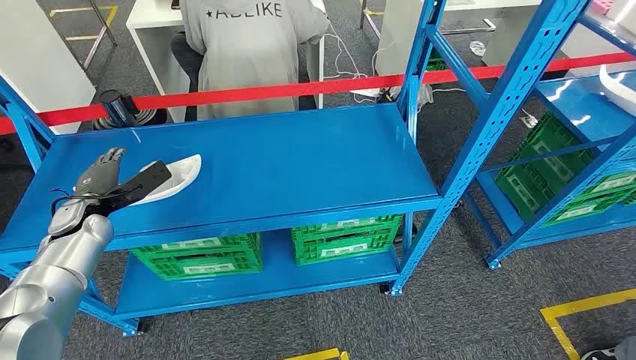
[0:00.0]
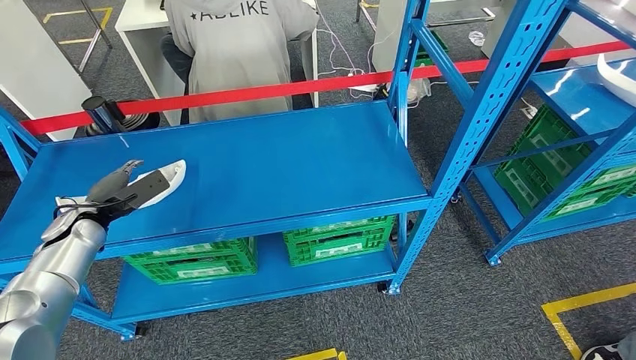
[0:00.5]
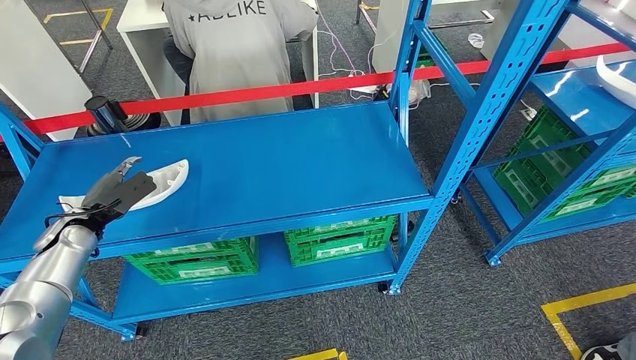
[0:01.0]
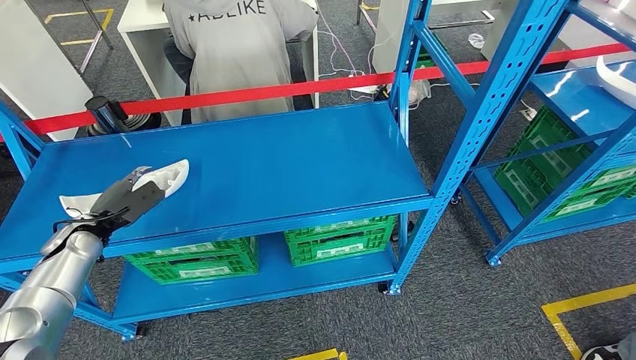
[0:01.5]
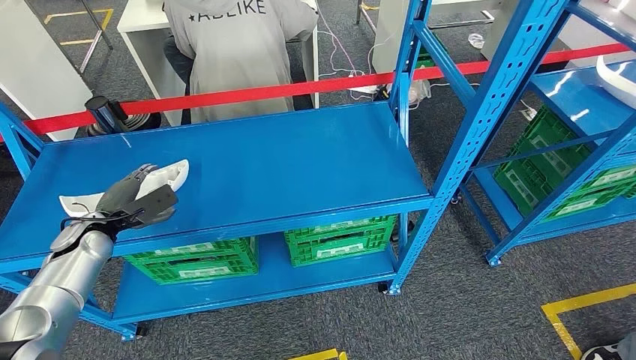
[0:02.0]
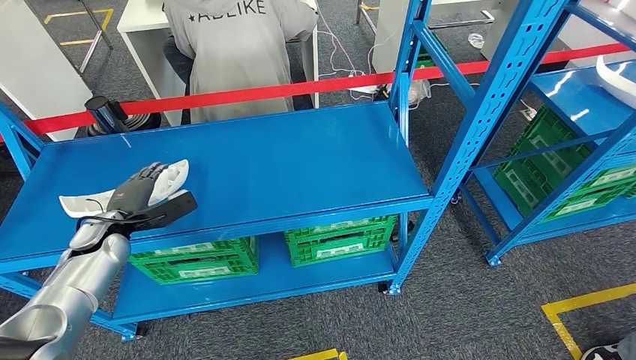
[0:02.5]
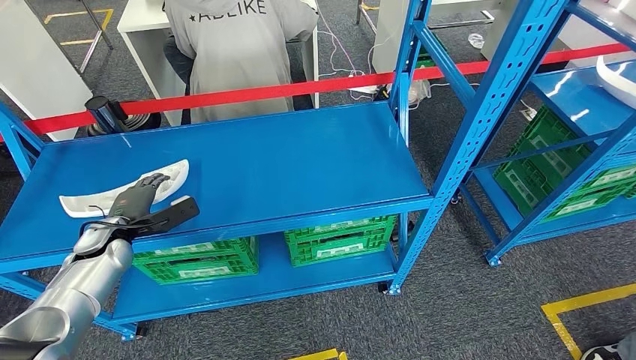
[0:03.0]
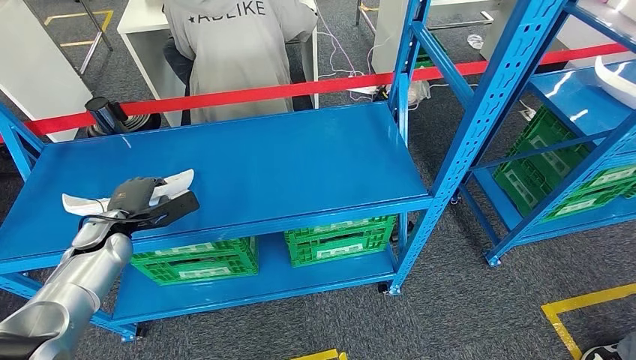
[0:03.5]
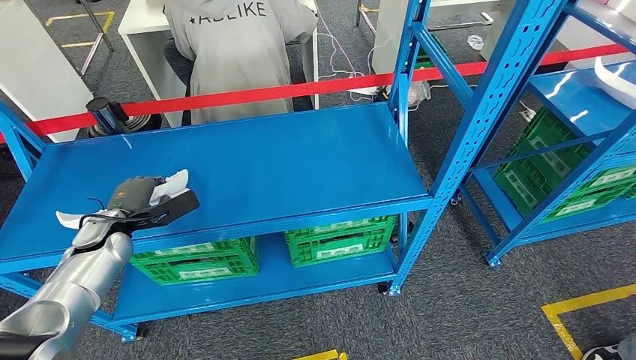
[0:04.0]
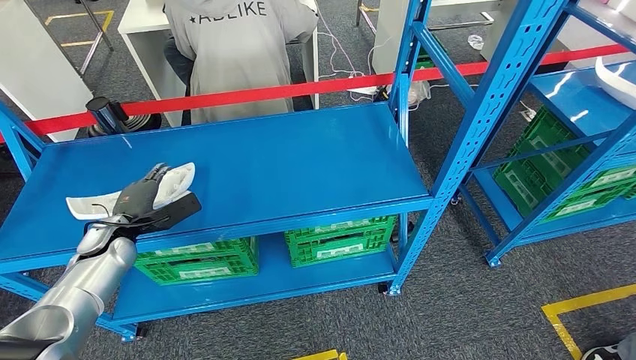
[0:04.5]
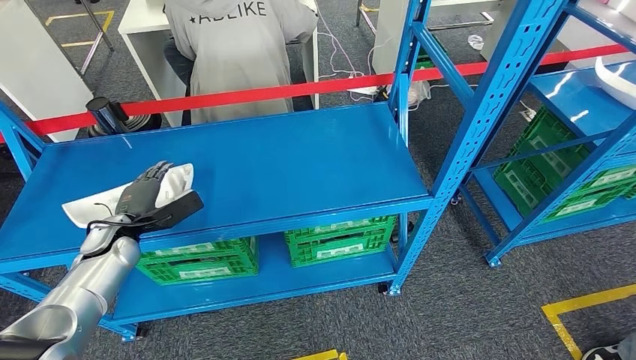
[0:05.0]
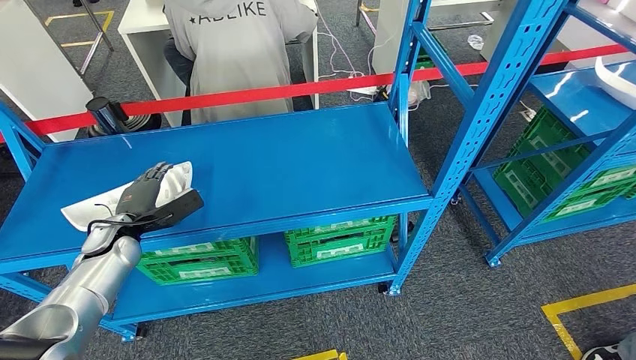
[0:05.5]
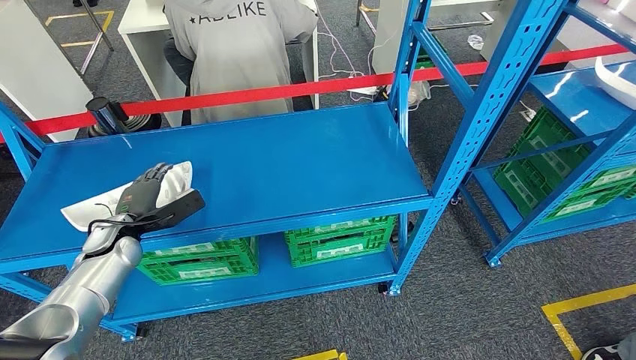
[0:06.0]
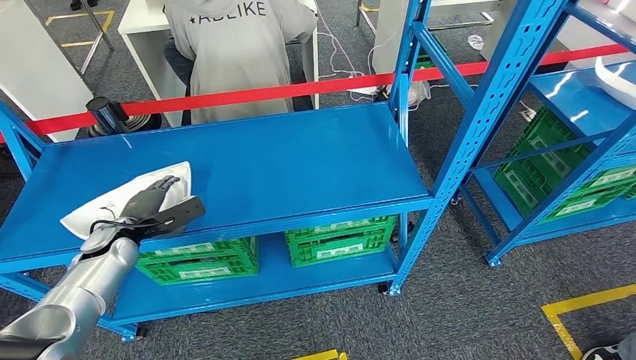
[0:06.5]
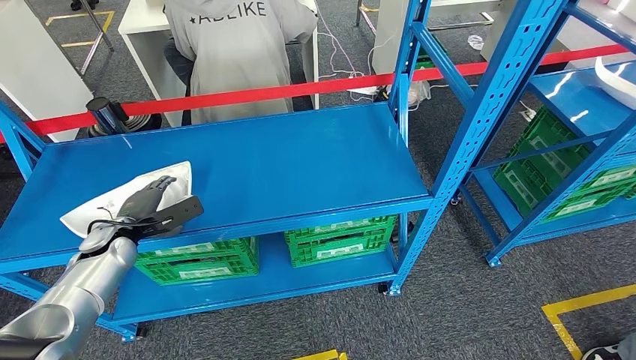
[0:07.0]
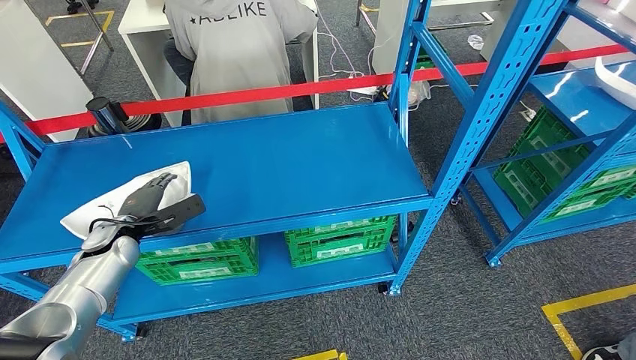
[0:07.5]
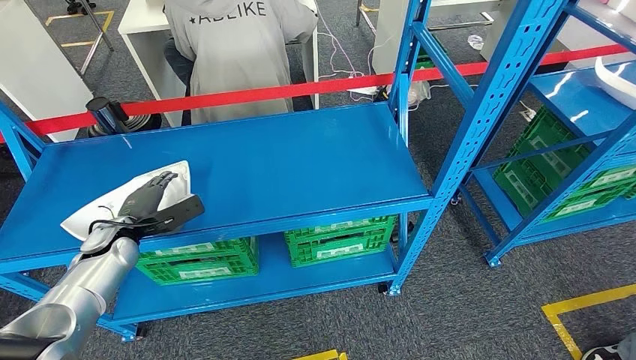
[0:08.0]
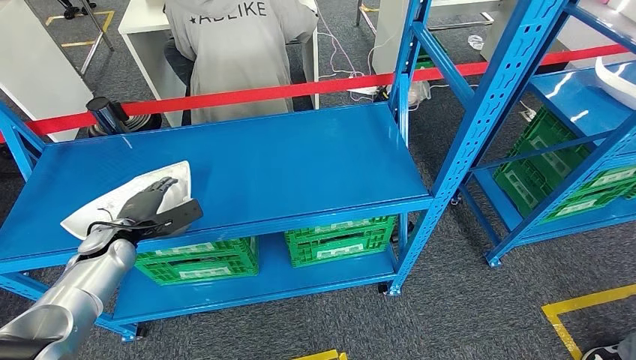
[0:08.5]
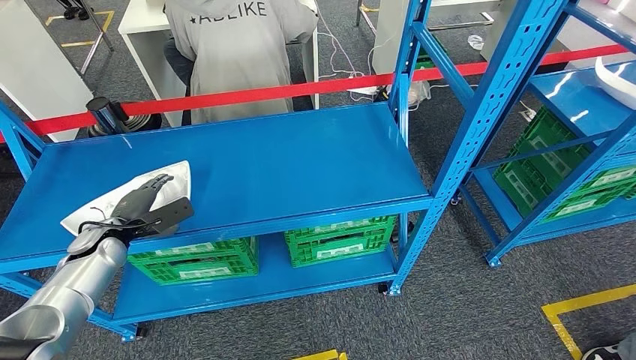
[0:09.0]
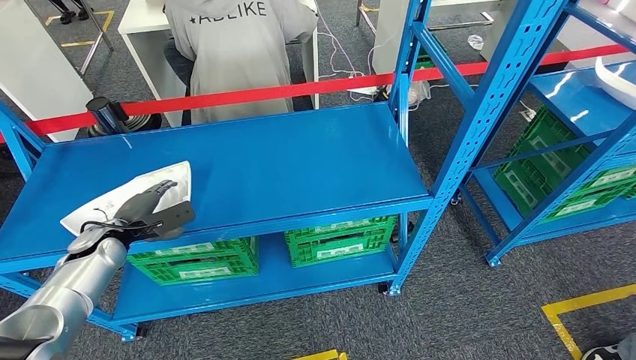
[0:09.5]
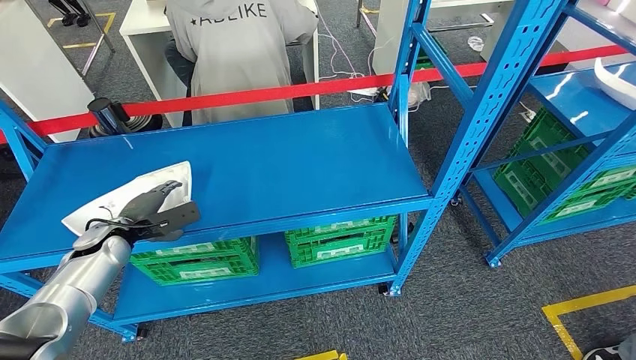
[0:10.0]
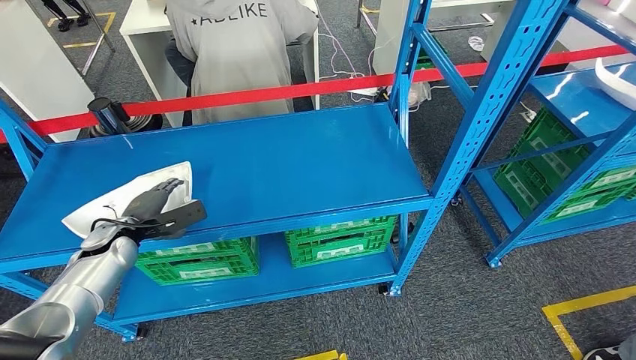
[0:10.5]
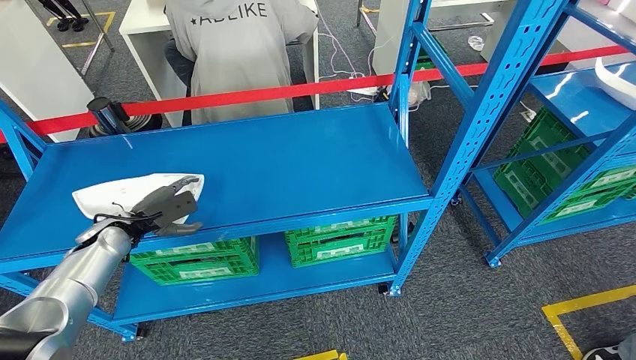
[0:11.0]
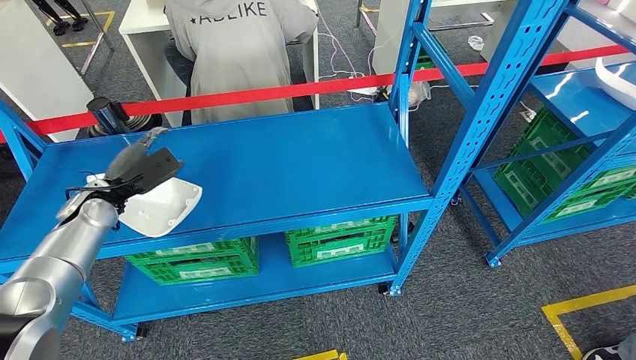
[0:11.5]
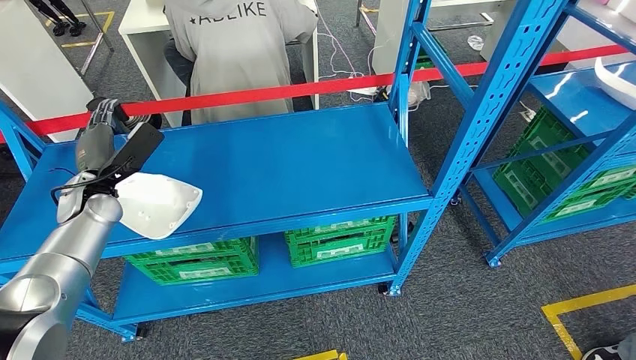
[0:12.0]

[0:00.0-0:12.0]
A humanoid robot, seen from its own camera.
2.0 to 10.0 s: There are only small adjustments of the hands.
10.0 to 12.0 s: The left hand is displaced upward by some 10 cm.

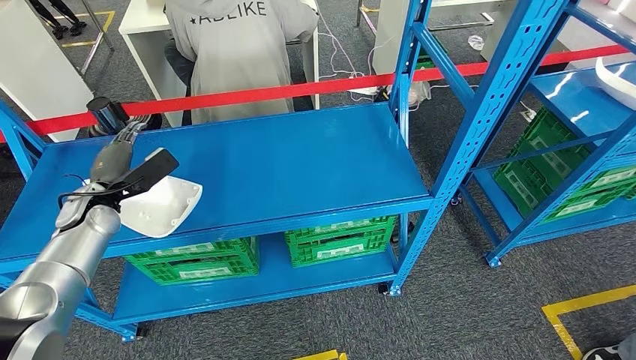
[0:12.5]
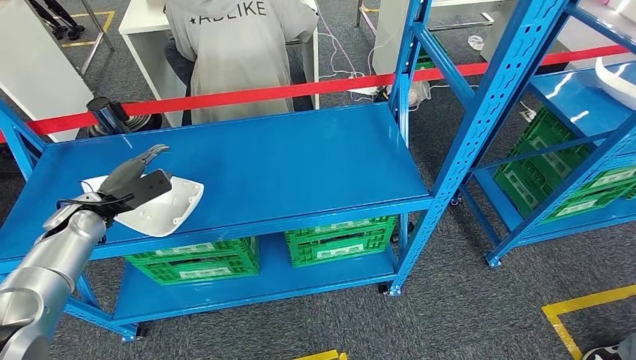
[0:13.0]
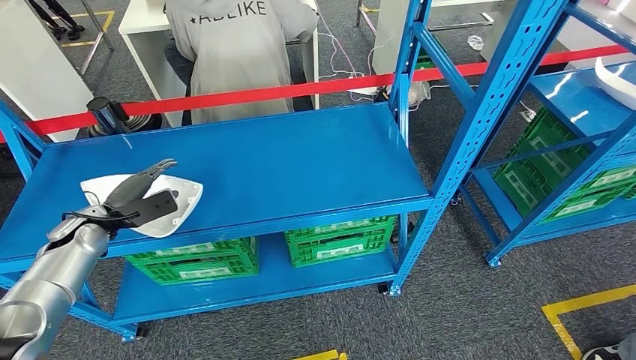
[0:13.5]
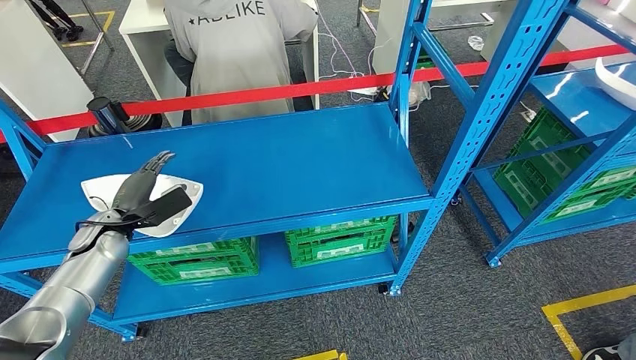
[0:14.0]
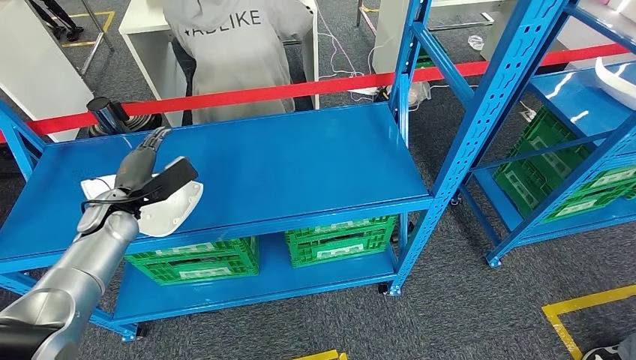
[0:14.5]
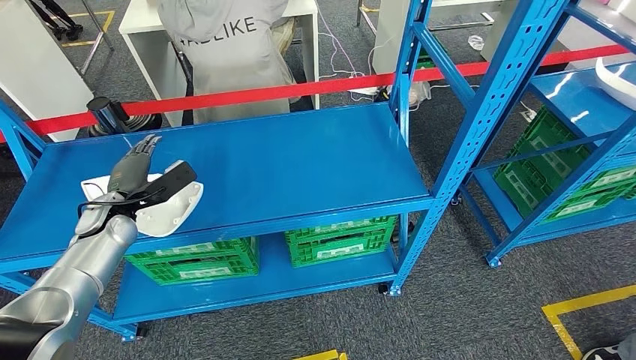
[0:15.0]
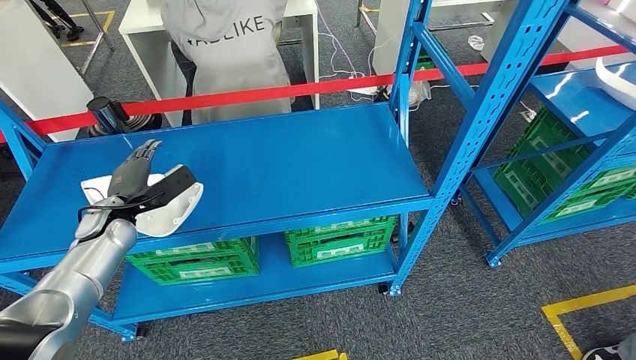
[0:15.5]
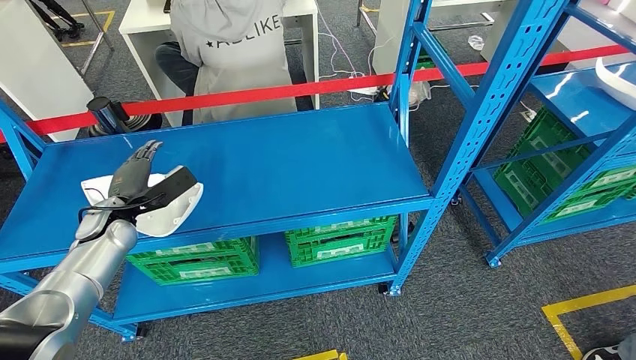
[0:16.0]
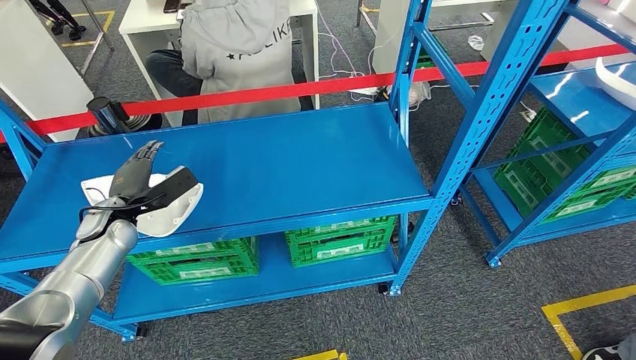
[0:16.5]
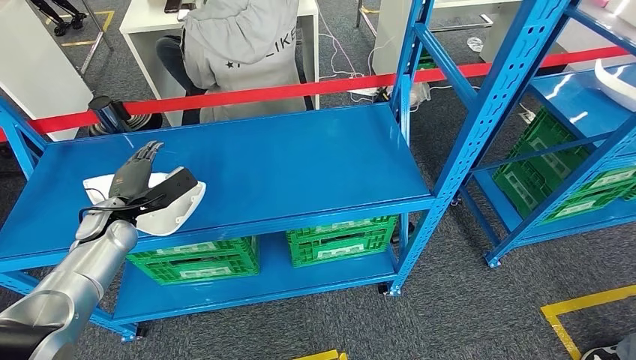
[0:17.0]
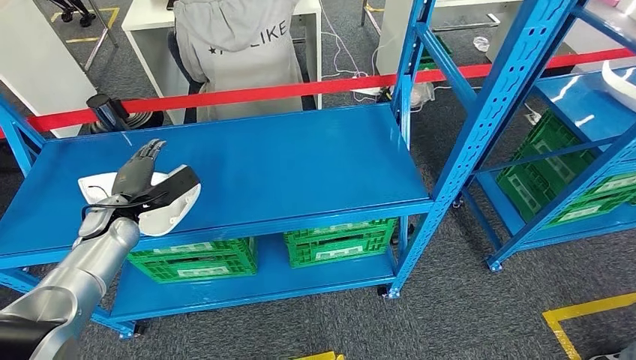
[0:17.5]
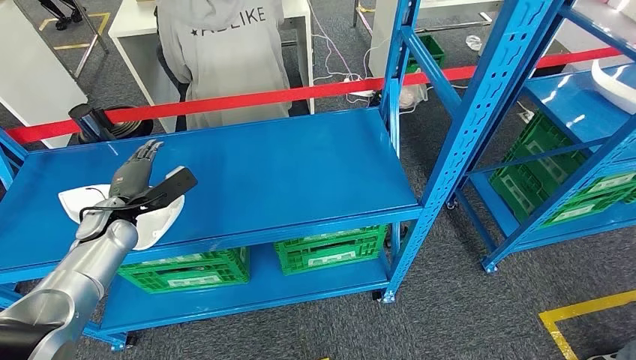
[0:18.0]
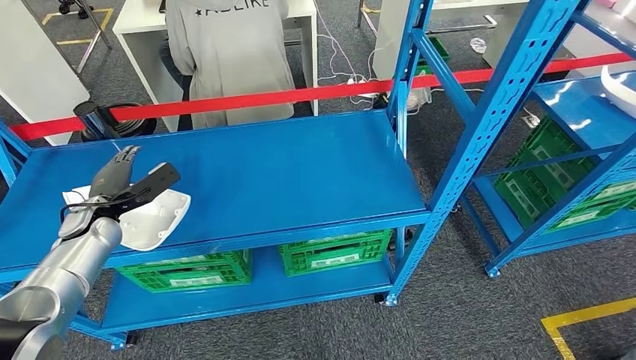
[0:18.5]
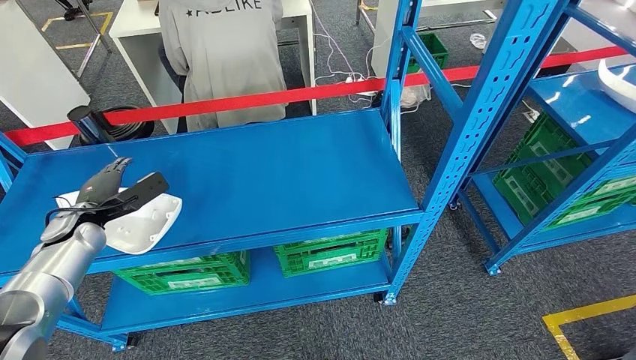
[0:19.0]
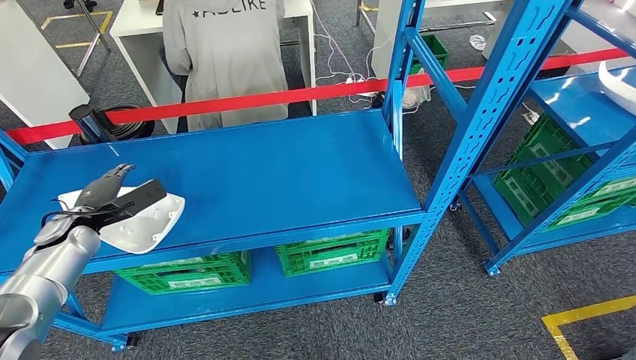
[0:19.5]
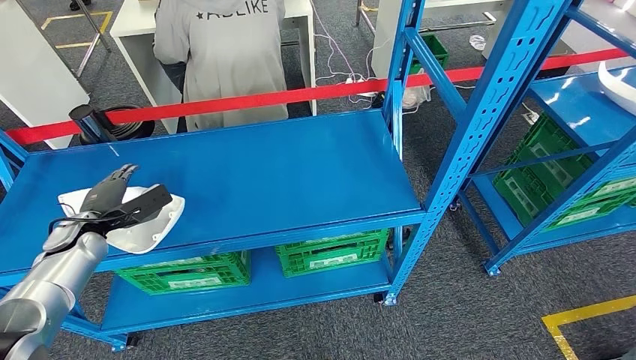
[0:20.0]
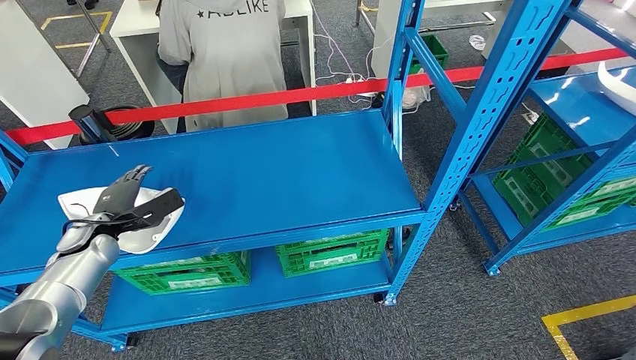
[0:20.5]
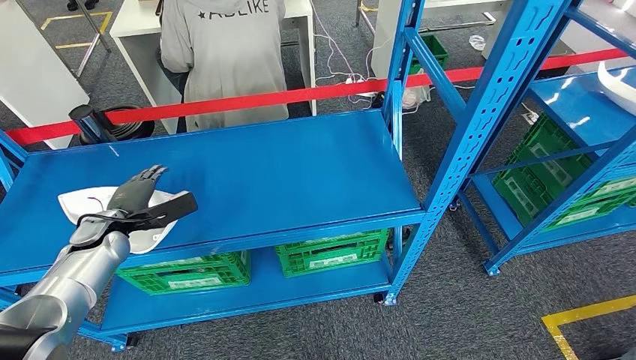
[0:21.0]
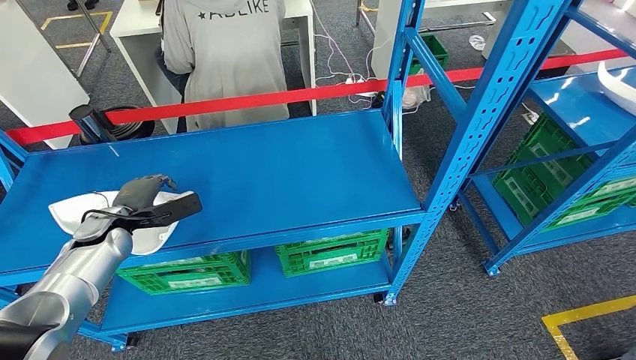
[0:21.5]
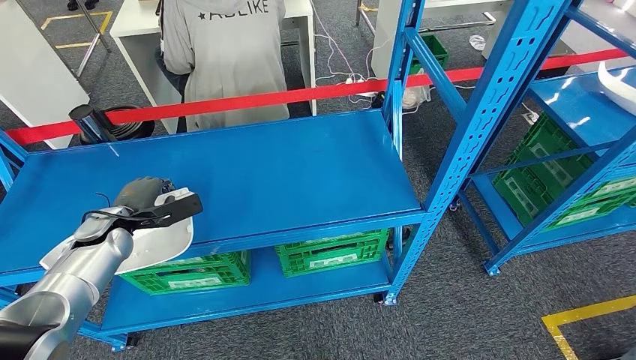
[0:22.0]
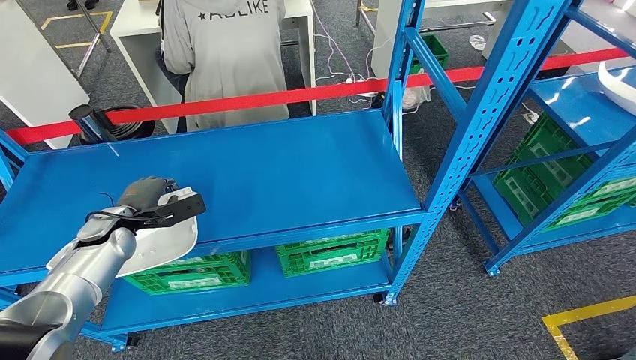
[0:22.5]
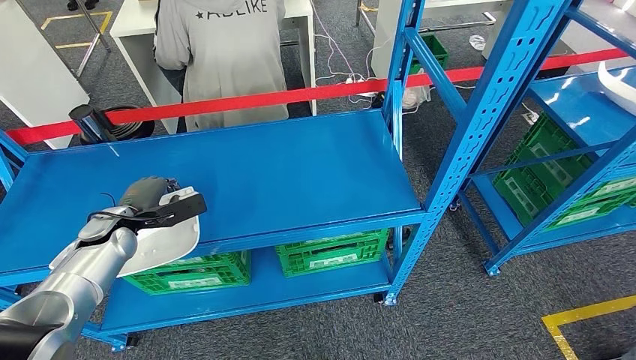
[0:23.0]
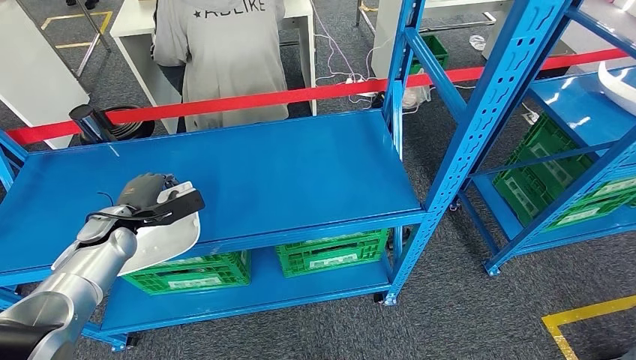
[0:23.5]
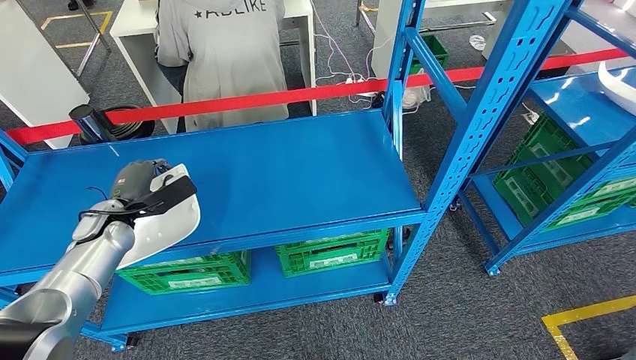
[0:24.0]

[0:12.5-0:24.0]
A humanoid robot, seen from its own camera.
14.5 to 16.5 s: The hands move only a little.
18.5 to 24.0 s: The hands make only small movements.
